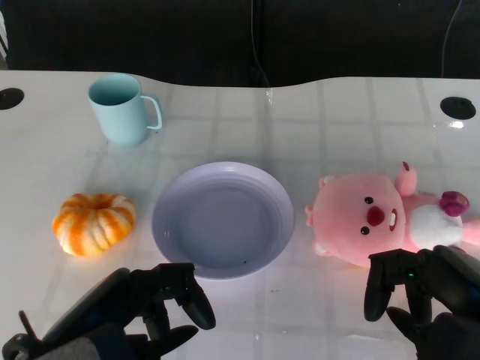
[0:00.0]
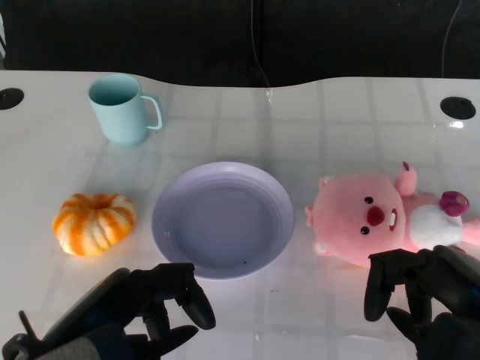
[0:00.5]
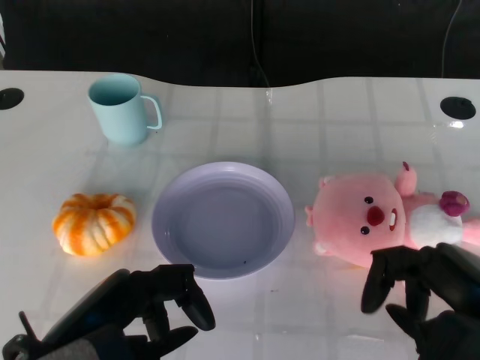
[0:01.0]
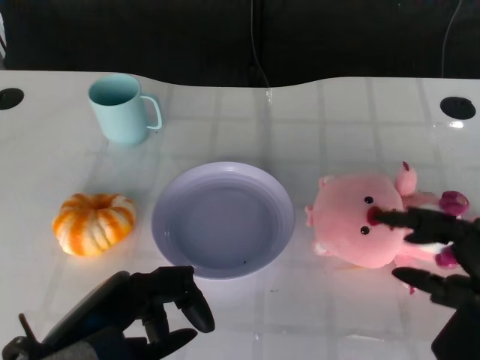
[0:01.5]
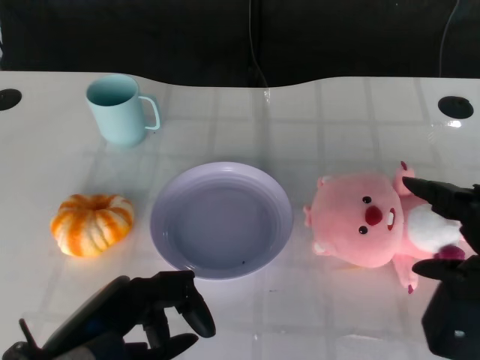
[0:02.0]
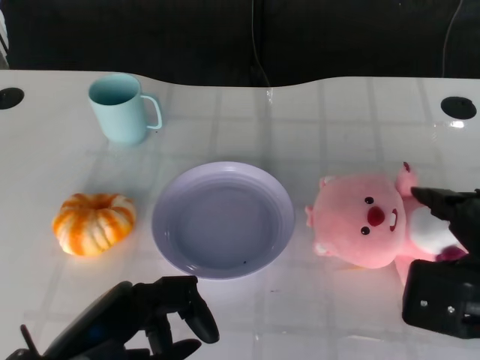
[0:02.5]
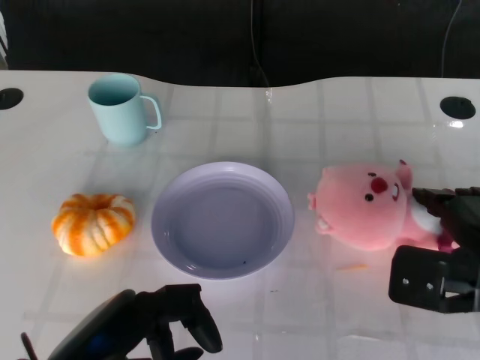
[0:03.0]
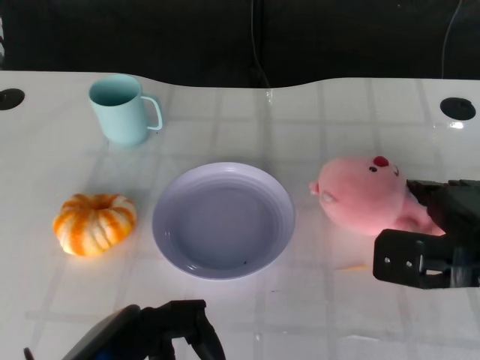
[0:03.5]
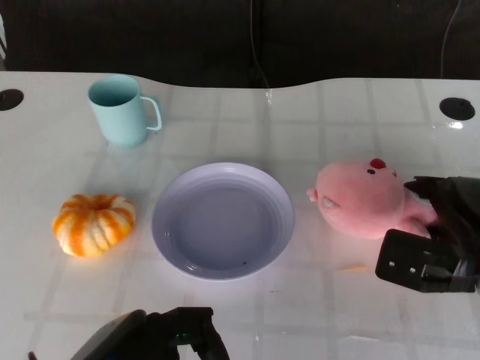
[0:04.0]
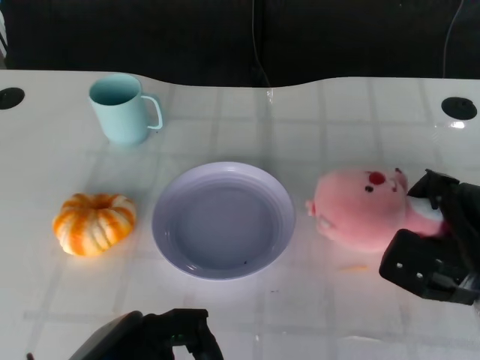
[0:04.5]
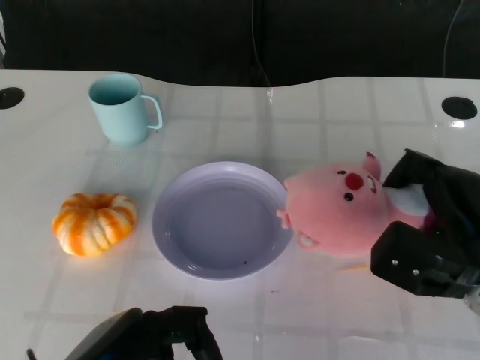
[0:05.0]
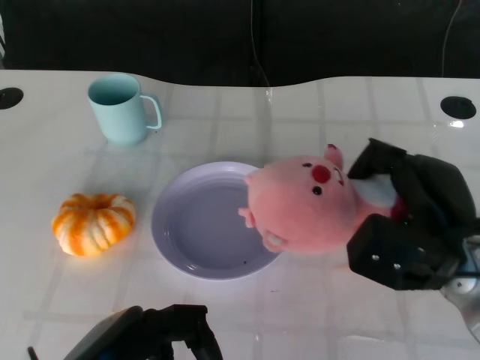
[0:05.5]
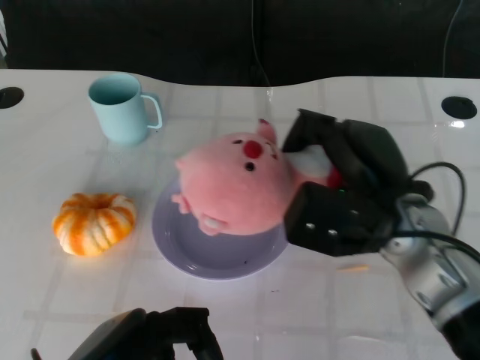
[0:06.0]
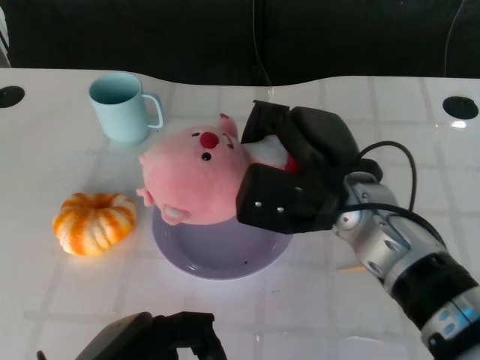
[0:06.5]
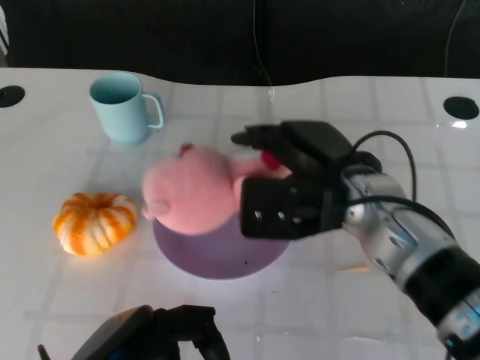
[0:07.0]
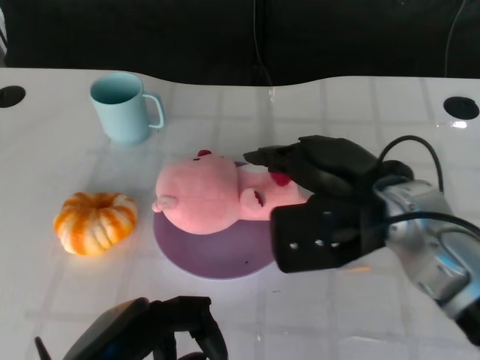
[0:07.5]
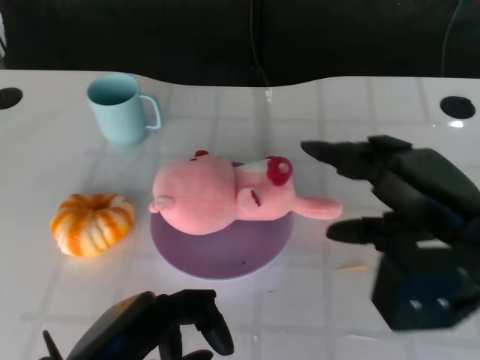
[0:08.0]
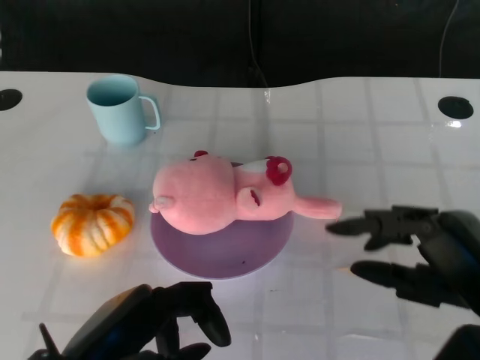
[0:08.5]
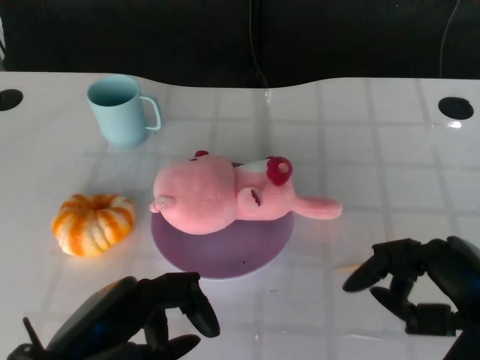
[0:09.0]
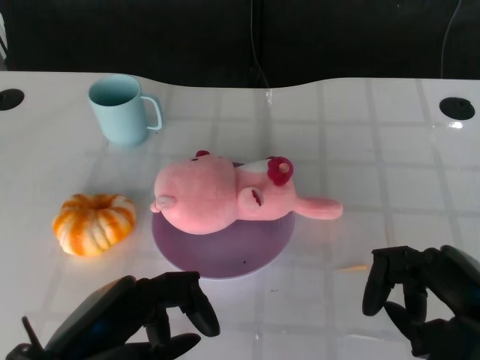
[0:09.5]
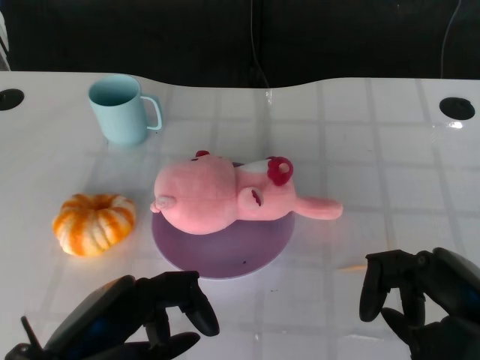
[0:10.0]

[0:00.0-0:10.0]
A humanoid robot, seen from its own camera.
Task of the whole recording: Pick up the doll on the other side of the plate and place it into the plate.
Step, 0:01.0 to 0:05.0: Grasp the pink doll with the right gripper.
Step, 0:05.5 to 0:08.0: Place the pink doll into the plate with the right gripper.
0:02.0 to 0:04.0: The right hand moves forward and downward, some 15 cm.
0:04.0 to 0:06.0: The right hand travels to the left and upward by some 10 cm.
0:06.0 to 0:08.0: The right hand moves to the right and backward, roughly 10 cm.
0:08.0 to 0:10.0: The right hand is displaced backward and downward by roughly 10 cm.

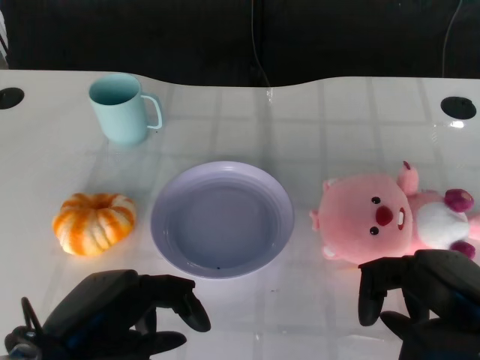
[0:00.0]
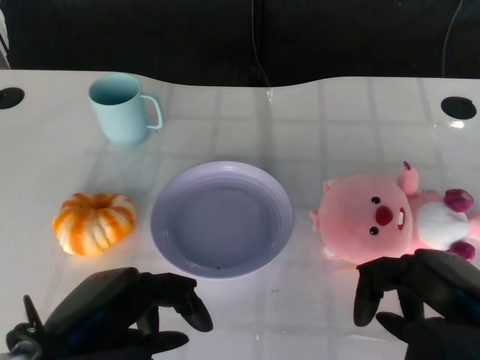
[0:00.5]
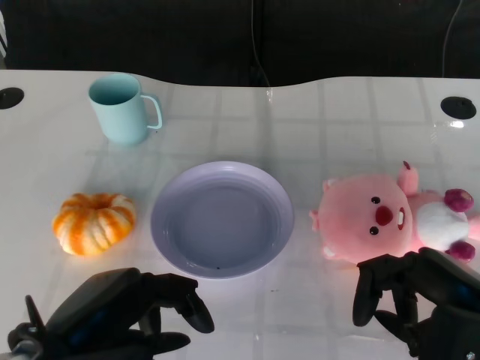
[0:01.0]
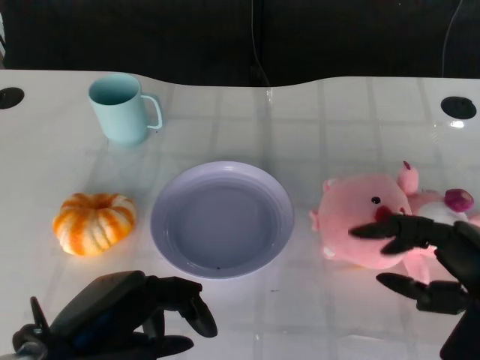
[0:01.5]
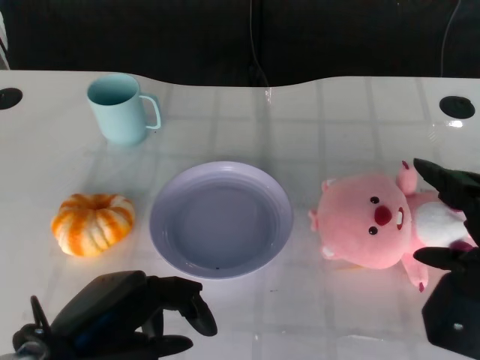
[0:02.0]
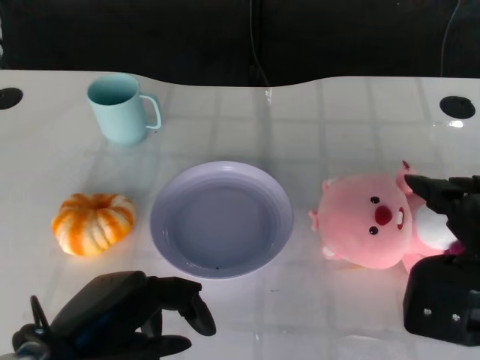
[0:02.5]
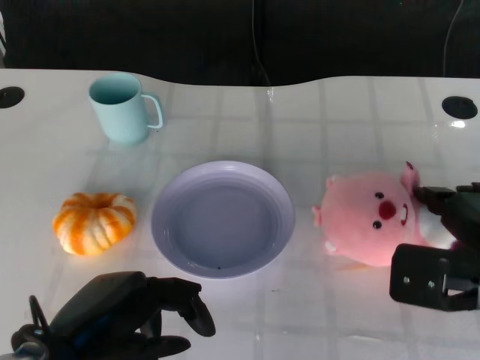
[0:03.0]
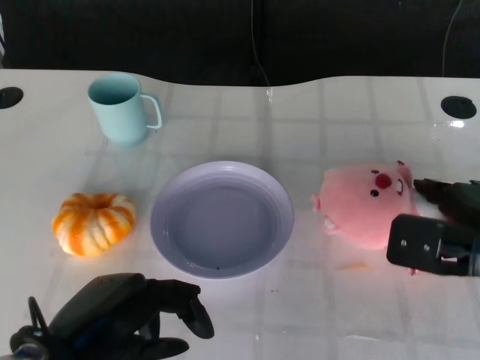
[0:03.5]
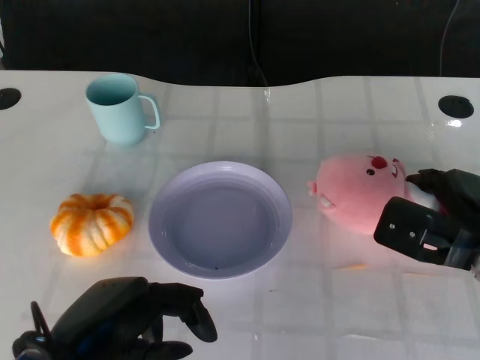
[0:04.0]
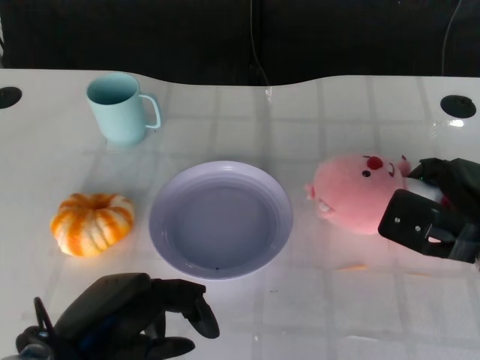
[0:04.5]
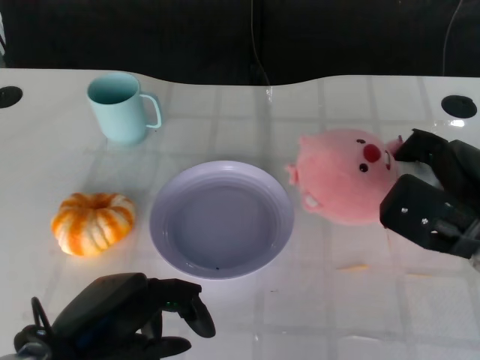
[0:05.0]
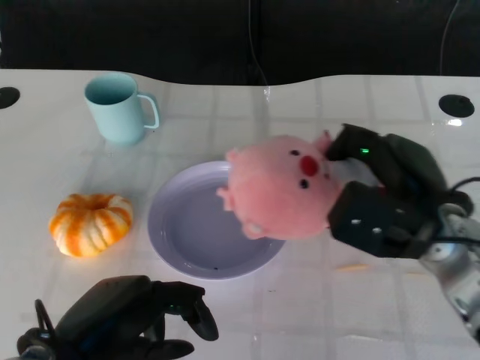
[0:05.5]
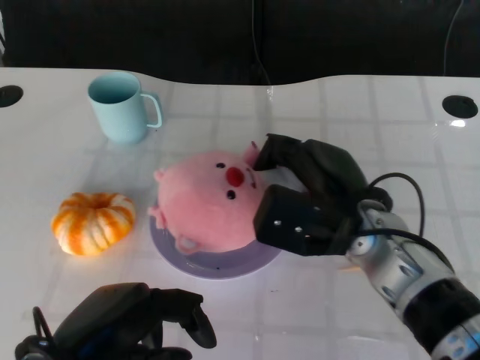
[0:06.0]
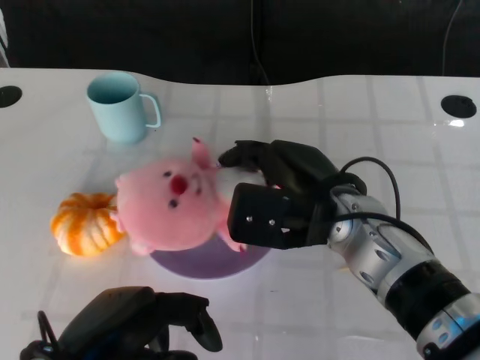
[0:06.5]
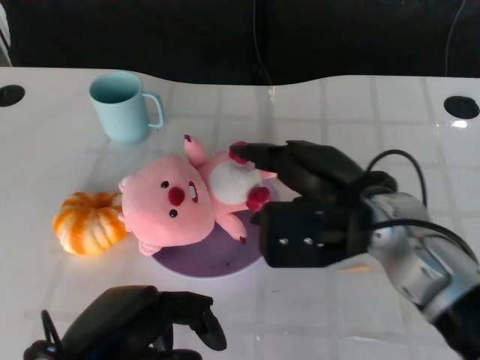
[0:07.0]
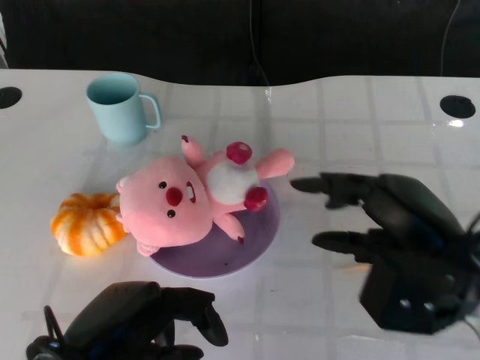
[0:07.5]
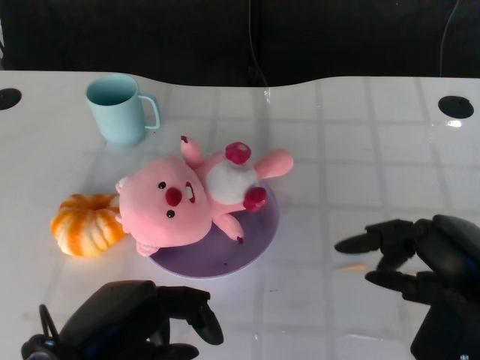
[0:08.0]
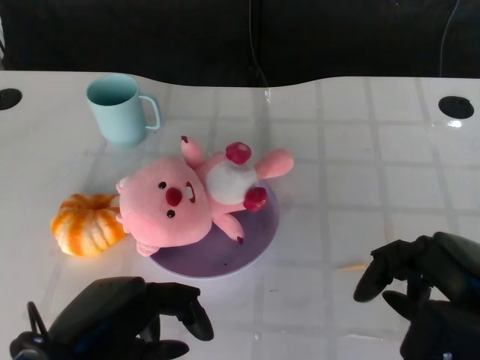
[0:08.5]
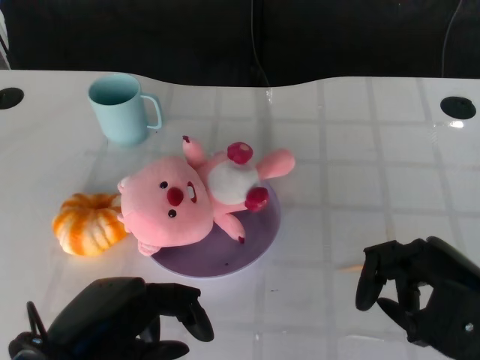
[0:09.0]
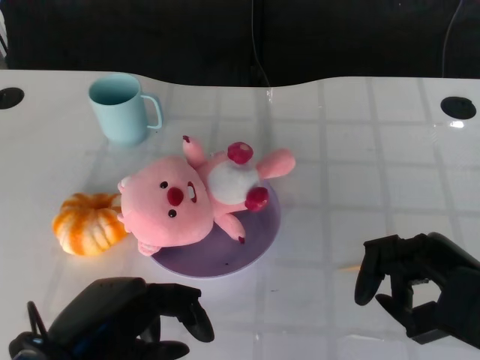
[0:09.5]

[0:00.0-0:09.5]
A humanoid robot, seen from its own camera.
Task of the whole recording: Pick up the doll on the other side of the plate and place it into the plate.
Step, 0:01.0 to 0:05.5: Grasp the pink doll with the right gripper.
Step, 0:06.0 to 0:07.0: Place the pink doll into the plate with the right gripper.
0:02.0 to 0:04.0: The right hand goes some 10 cm forward and downward.
0:04.0 to 0:05.5: The right hand travels to the left by approximately 5 cm.
0:05.5 to 0:07.5: The right hand shifts some 5 cm backward, and reaches about 10 cm to the left, then returns.
0:07.5 to 0:09.5: The right hand shifts by approximately 5 cm.

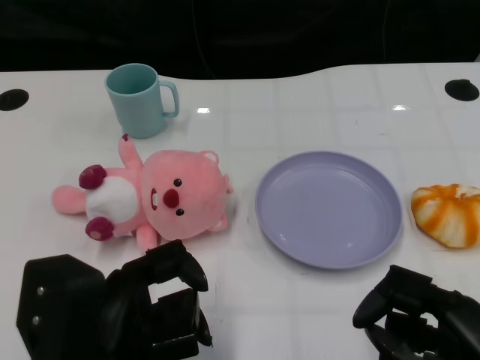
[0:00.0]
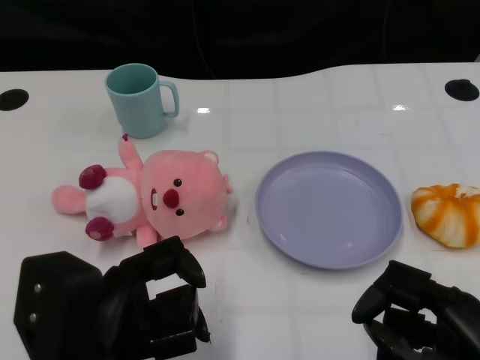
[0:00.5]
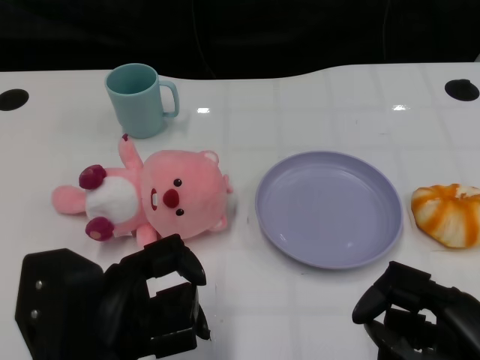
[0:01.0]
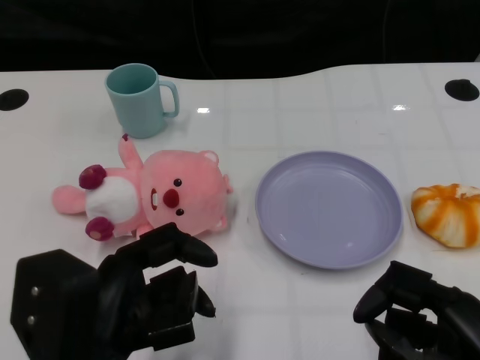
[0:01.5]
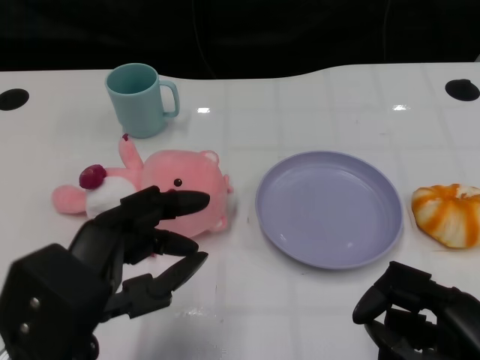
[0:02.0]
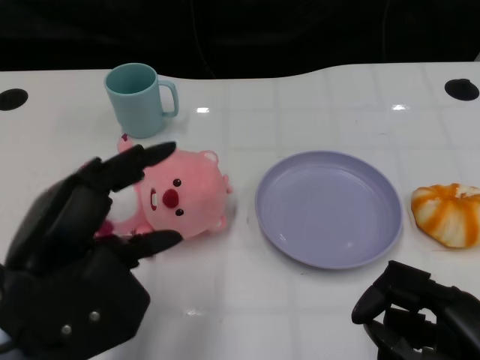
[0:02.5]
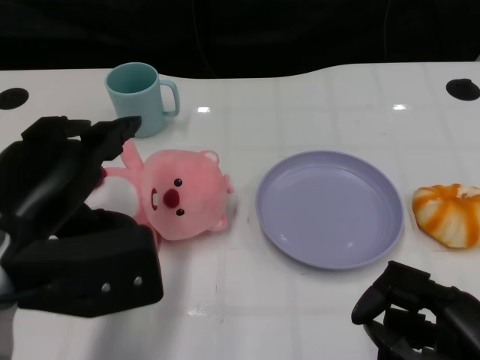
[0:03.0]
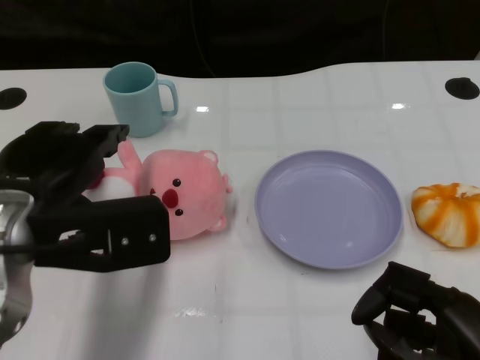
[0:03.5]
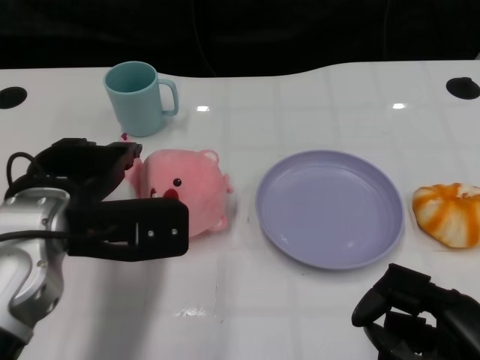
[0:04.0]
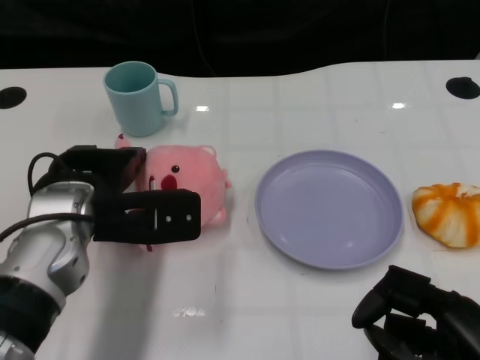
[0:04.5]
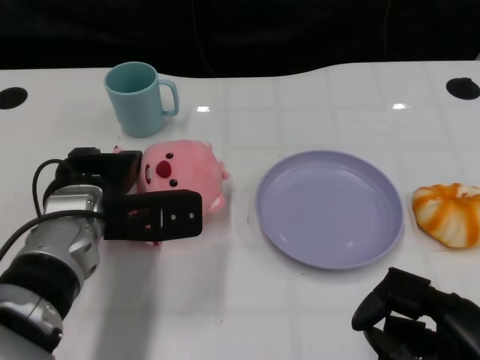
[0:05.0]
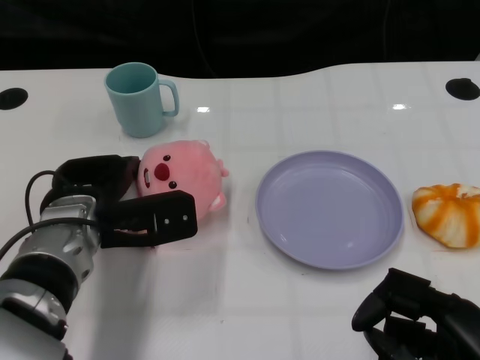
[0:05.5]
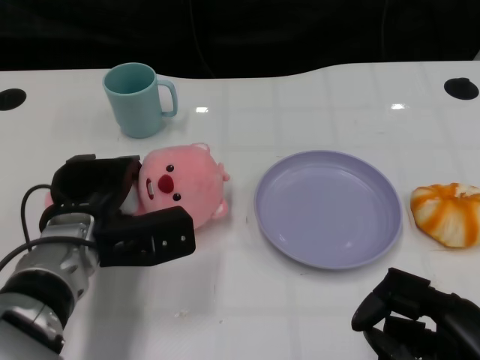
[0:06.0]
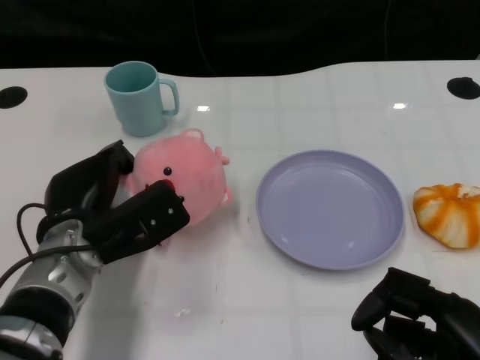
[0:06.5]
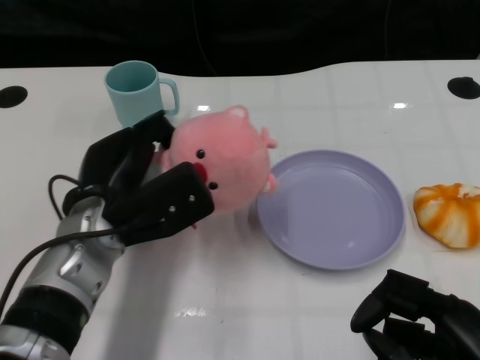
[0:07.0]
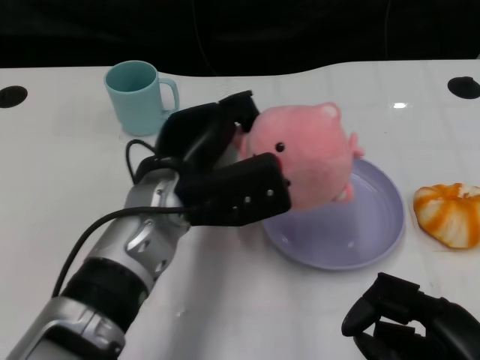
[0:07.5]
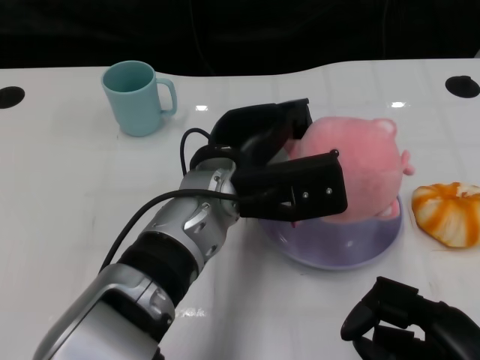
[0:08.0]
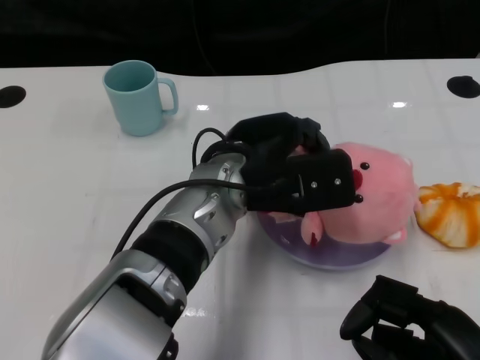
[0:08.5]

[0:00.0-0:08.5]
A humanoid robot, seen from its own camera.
Task of the whole recording: Pick up the doll on one side of the plate and place it into the plate.
Step, 0:01.5 to 0:06.0: Grasp the pink doll with the left gripper.
0:02.0 to 0:04.0: The left hand shifts some 10 cm forward.
0:04.0 to 0:06.5: The left hand is displaced downward by about 10 cm.
0:06.5 to 0:08.5: The left hand is displaced to the right and upward by some 15 cm.
